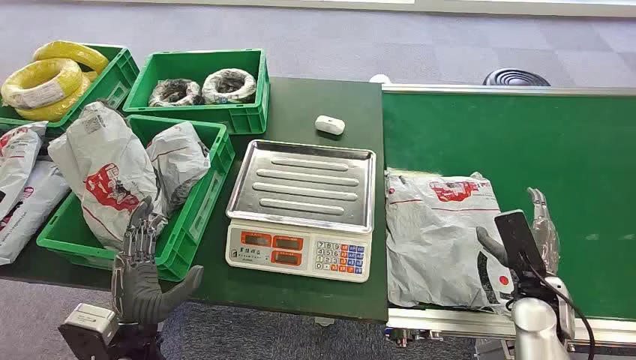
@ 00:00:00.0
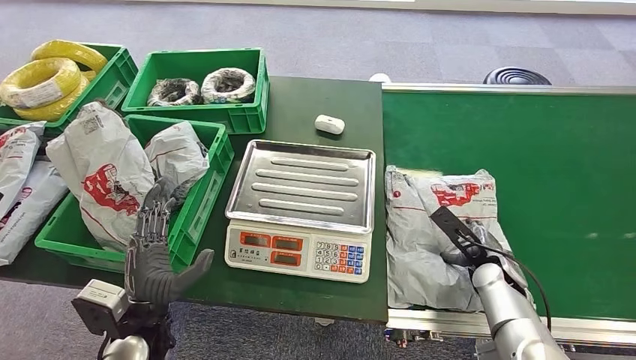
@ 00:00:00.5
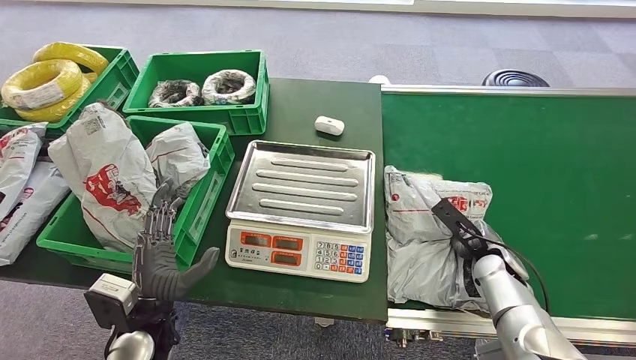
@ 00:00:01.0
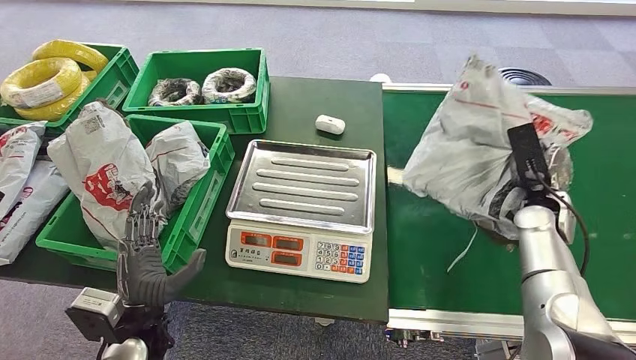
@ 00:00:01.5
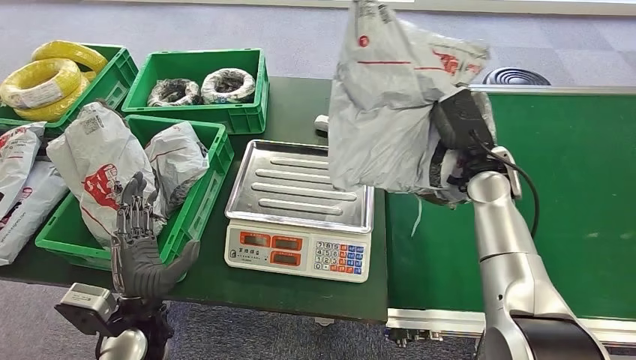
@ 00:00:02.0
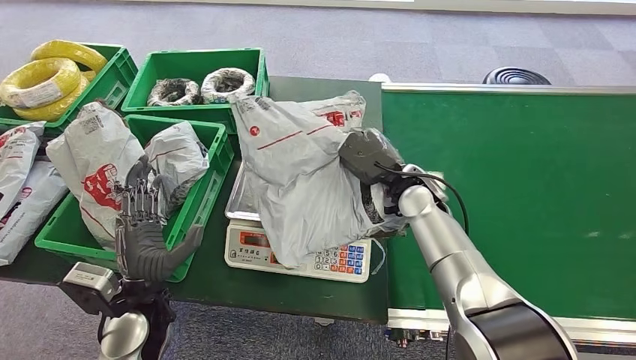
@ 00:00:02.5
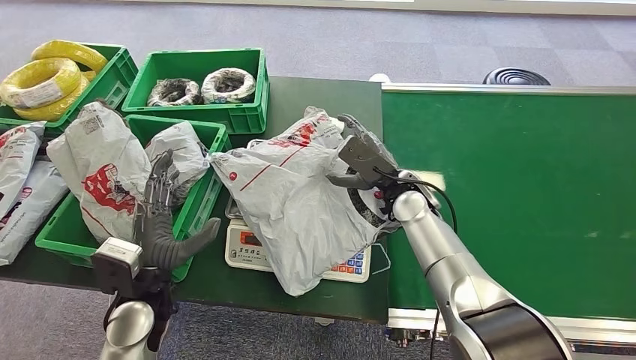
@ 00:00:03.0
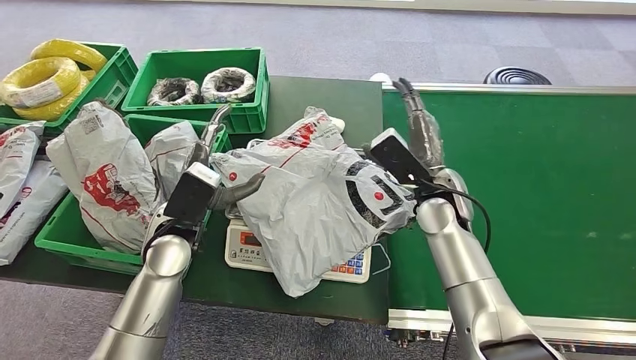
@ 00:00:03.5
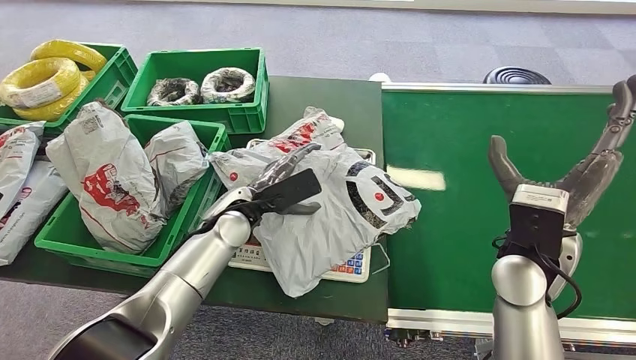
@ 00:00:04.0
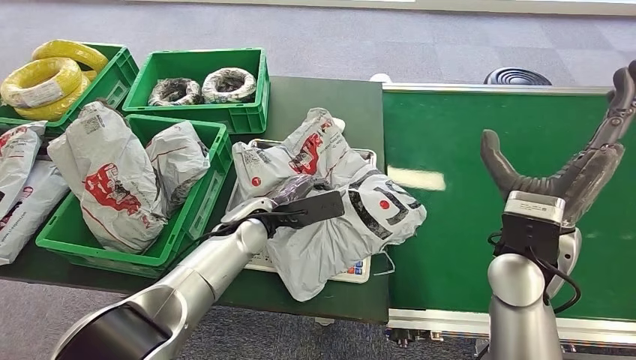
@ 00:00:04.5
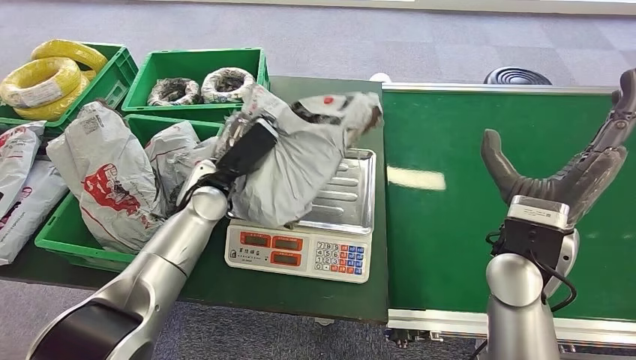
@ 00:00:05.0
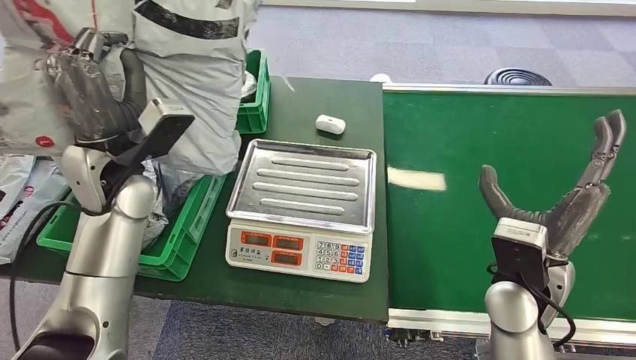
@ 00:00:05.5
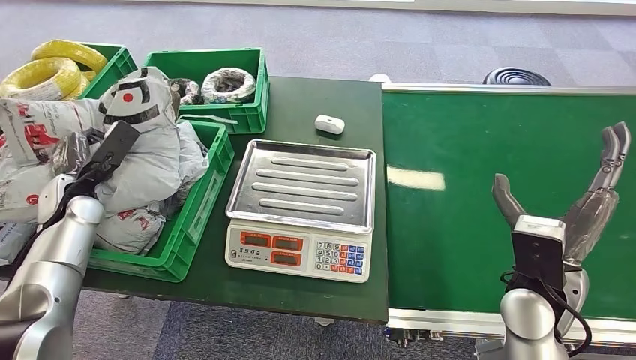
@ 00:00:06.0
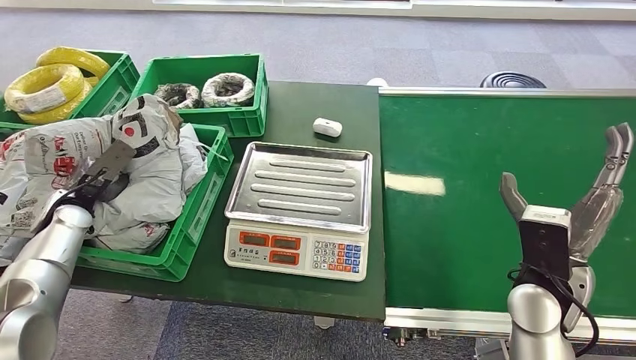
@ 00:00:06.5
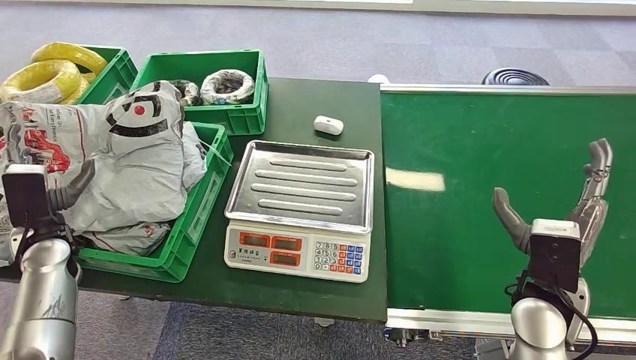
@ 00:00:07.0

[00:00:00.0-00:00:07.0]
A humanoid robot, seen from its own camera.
Step, 00:00:00.0 to 00:00:01.0: Pick up the package from the conveyor belt.
Step, 00:00:02.0 to 00:00:03.0: Place the package onto the inbound machine.
Step, 00:00:03.5 to 00:00:05.0: Pick up the package from the inbound machine.
Step, 00:00:05.5 to 00:00:07.0: Place the package into the parcel locker.
